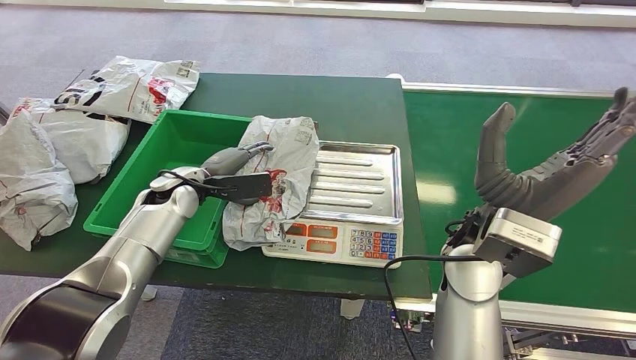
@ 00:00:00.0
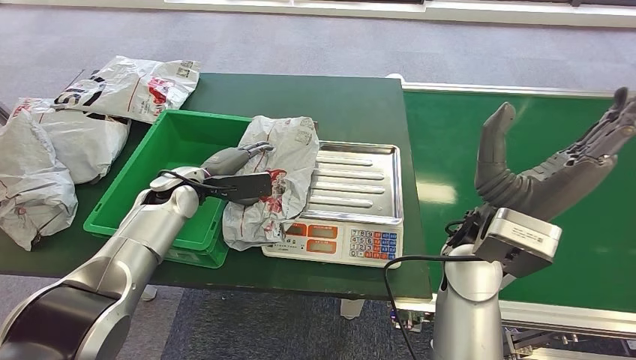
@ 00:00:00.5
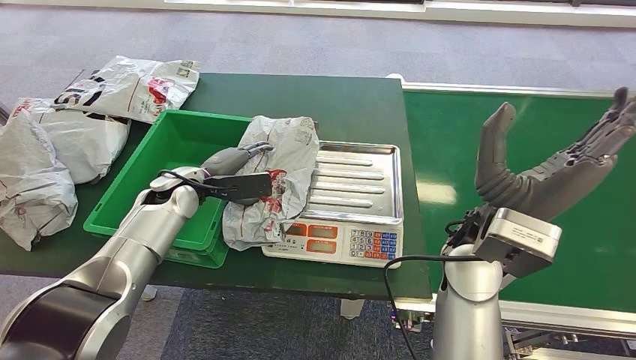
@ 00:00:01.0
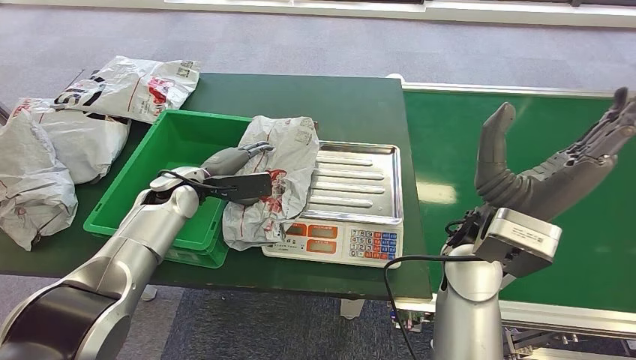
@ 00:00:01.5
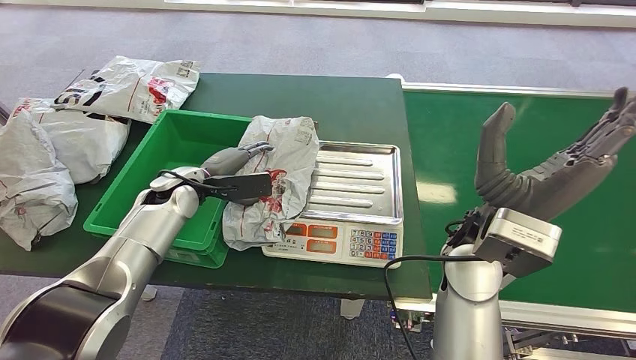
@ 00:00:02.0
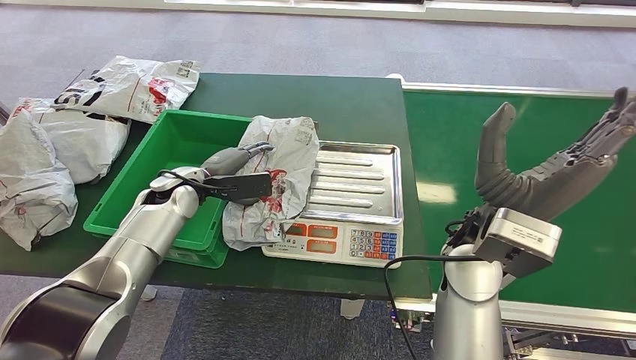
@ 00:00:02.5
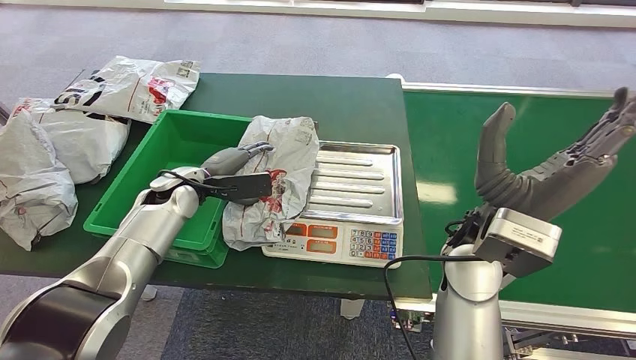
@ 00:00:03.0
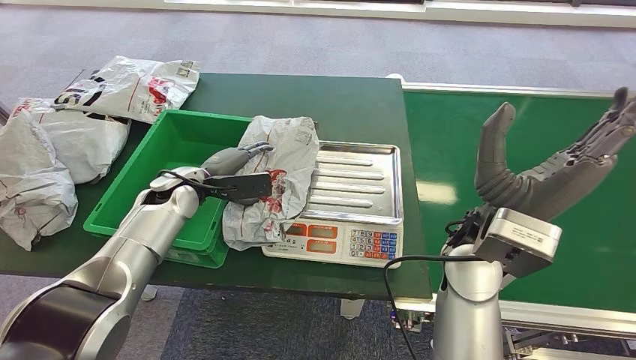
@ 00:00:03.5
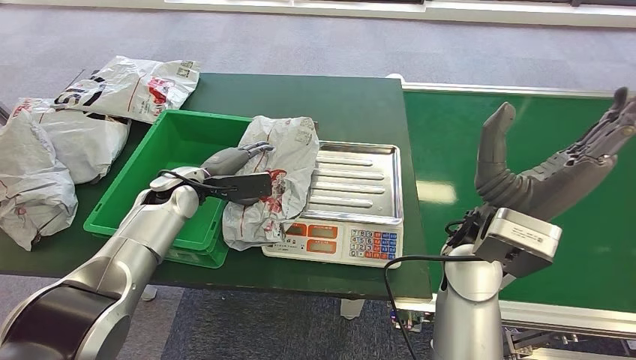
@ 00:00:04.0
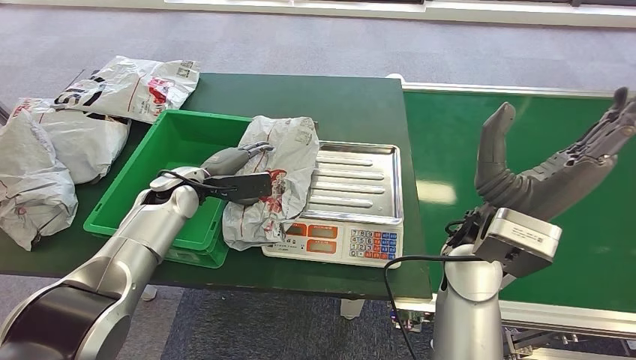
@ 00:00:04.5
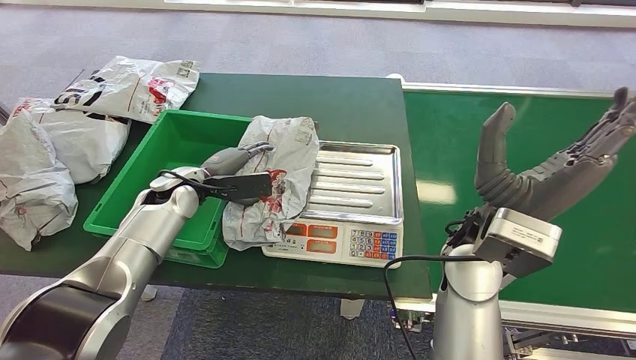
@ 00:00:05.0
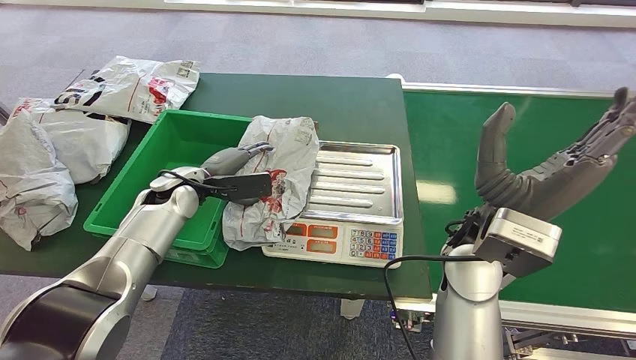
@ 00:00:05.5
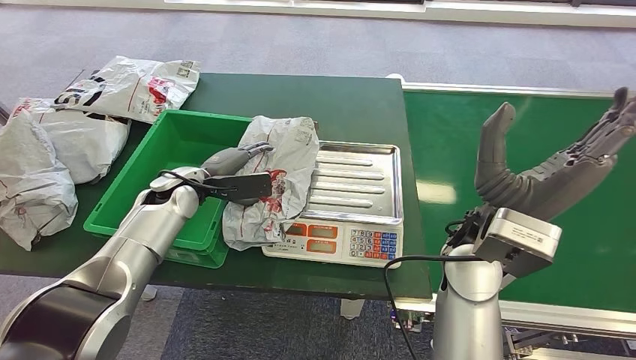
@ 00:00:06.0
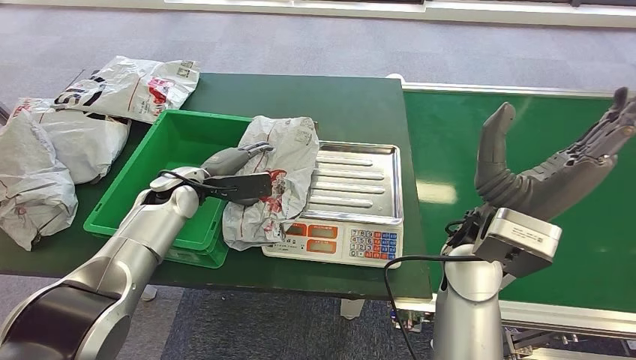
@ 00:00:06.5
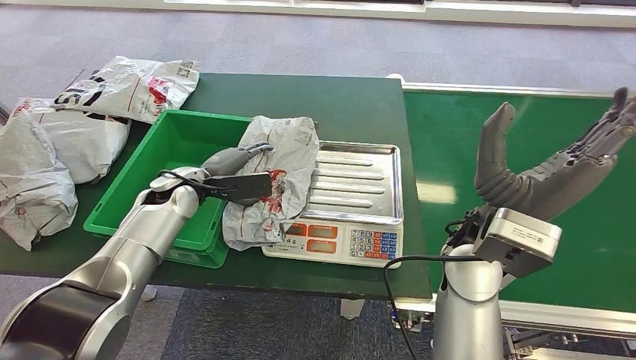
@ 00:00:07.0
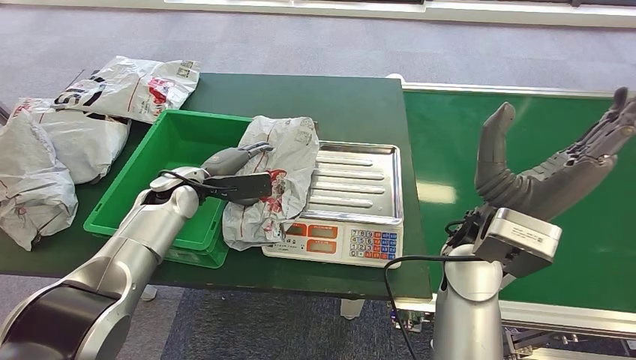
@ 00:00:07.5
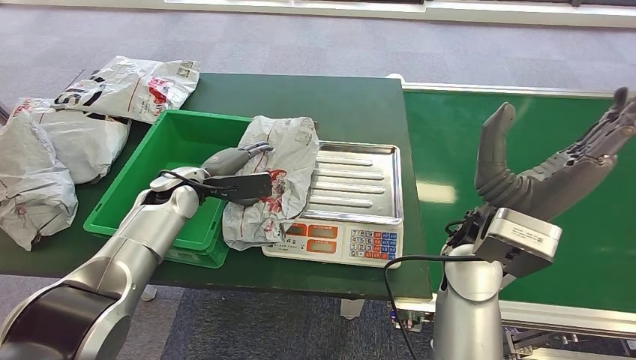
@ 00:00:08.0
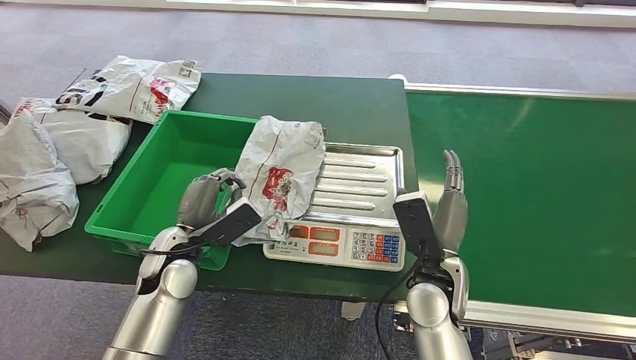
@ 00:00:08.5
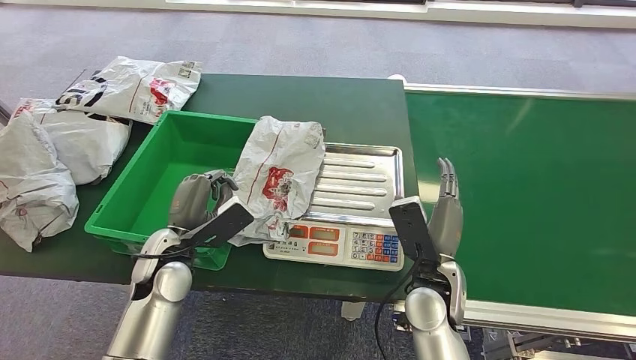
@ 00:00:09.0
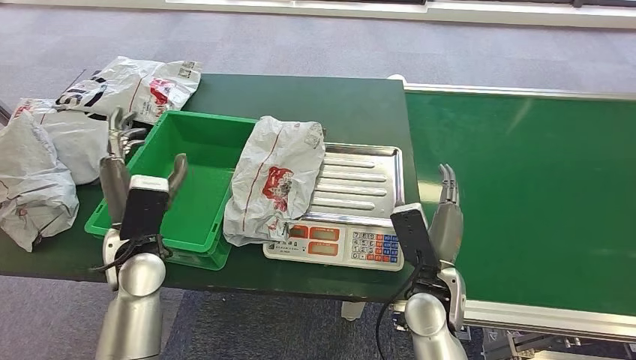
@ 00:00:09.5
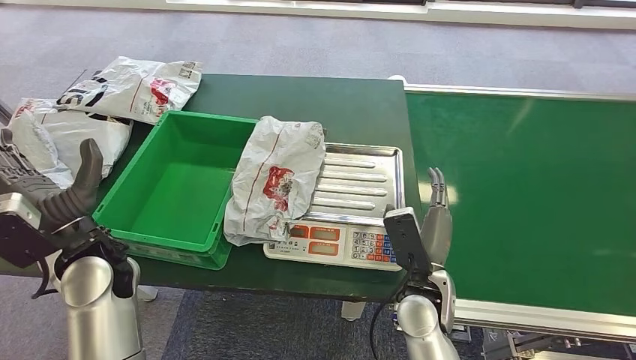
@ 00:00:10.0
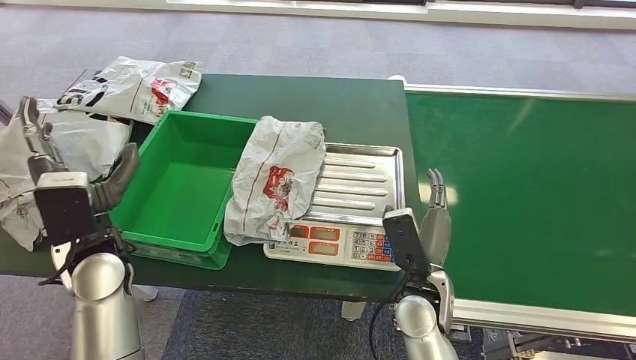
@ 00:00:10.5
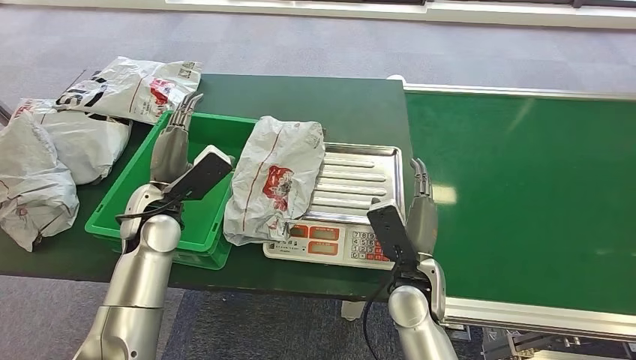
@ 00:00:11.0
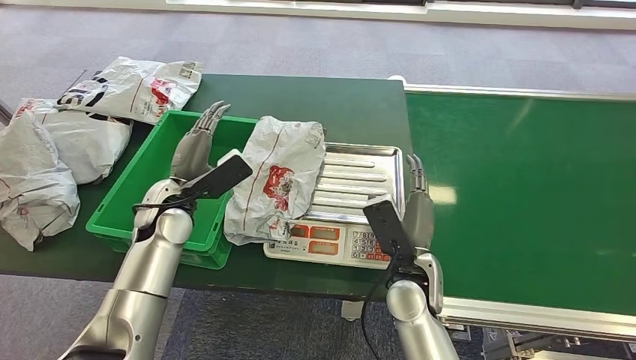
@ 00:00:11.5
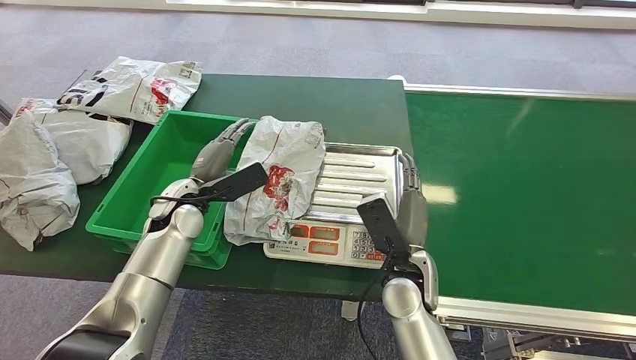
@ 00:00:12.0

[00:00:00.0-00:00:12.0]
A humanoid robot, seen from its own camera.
00:00:00.0 to 00:00:08.0: Neither hand changes place.
00:00:10.0 to 00:00:12.0: The left hand goes some 15 cm forward and downward.

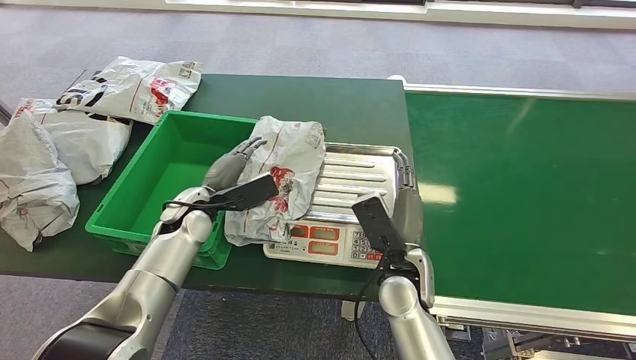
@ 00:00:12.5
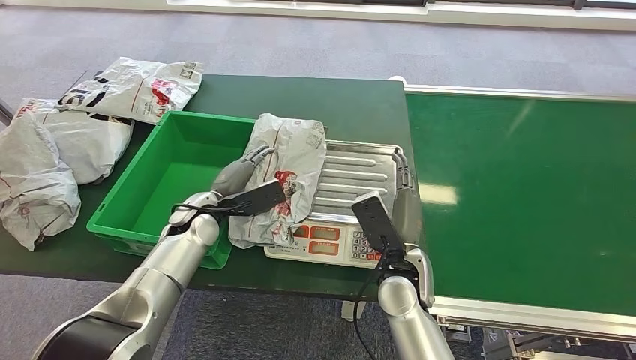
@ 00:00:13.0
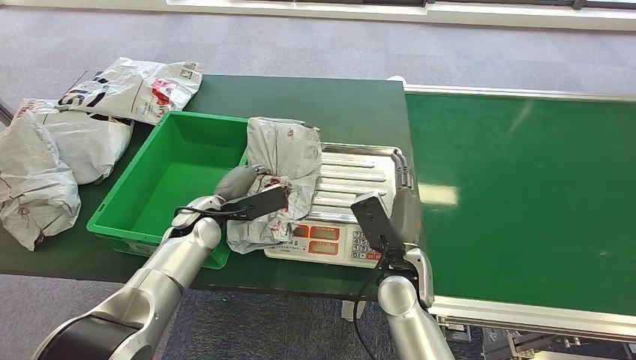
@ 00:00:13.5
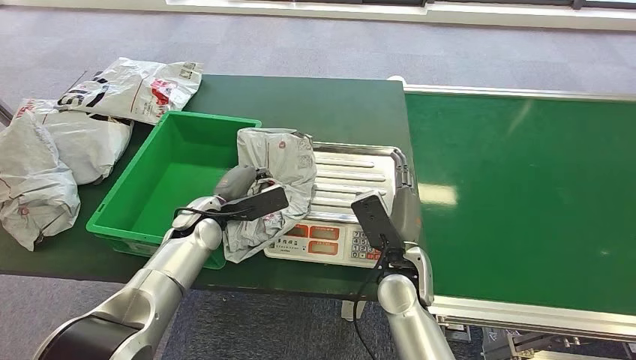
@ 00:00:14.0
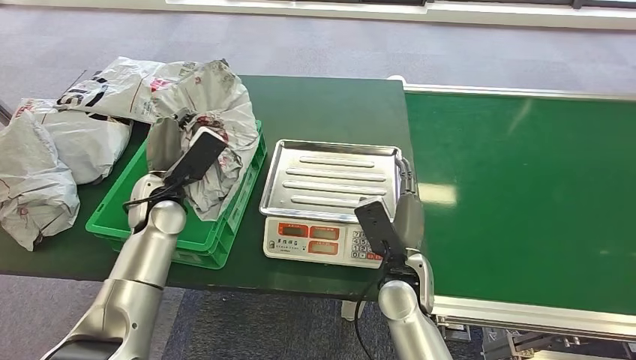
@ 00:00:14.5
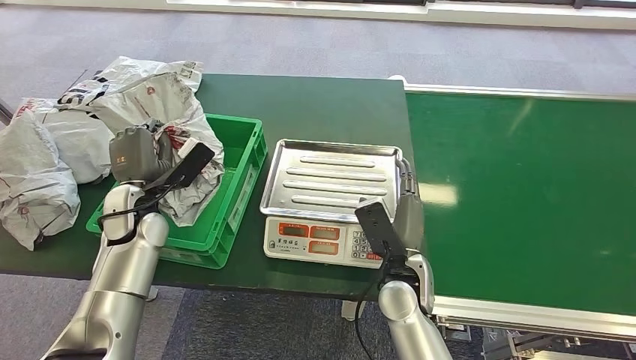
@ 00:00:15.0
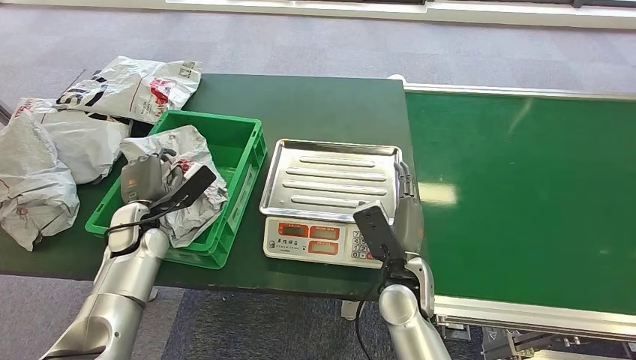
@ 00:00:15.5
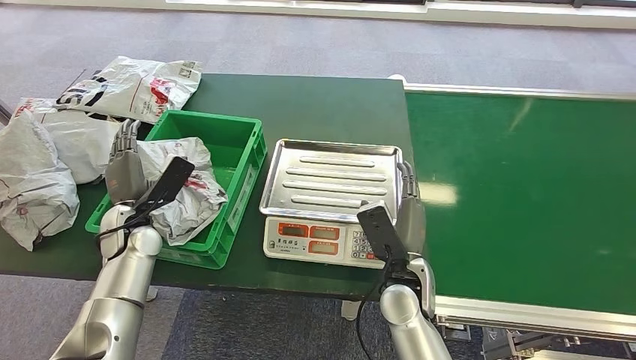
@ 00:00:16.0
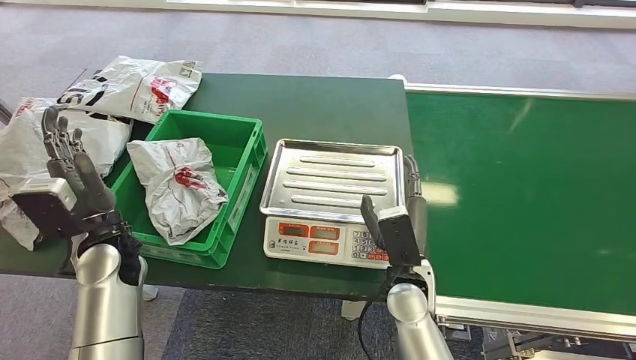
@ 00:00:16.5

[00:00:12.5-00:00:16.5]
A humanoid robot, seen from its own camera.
Step, 00:00:12.5 to 00:00:14.5: Pick up the package from the inbound machine.
Step, 00:00:15.0 to 00:00:16.5: Place the package into the parcel locker.
00:00:12.5 to 00:00:14.5: The left hand ends up approximately 5 cm from where it was.
00:00:14.5 to 00:00:16.5: The left hand travels backward by roughly 10 cm.
